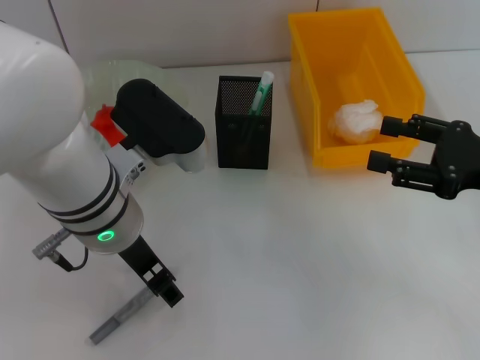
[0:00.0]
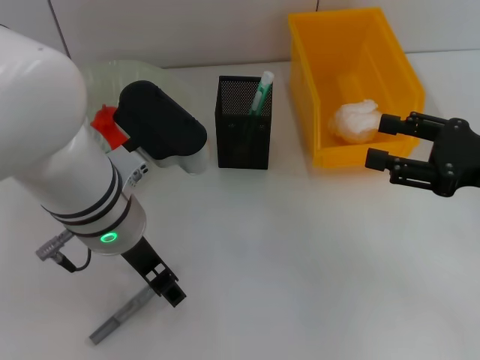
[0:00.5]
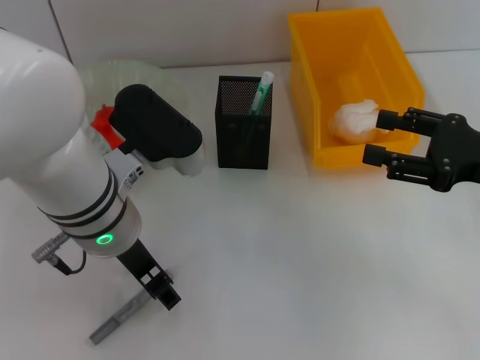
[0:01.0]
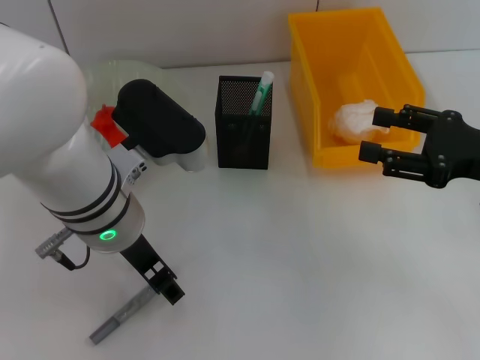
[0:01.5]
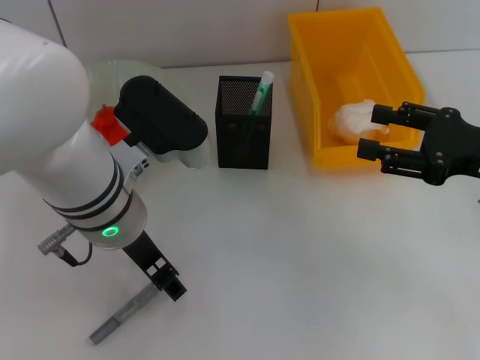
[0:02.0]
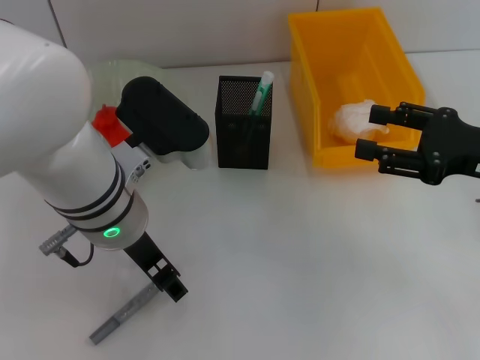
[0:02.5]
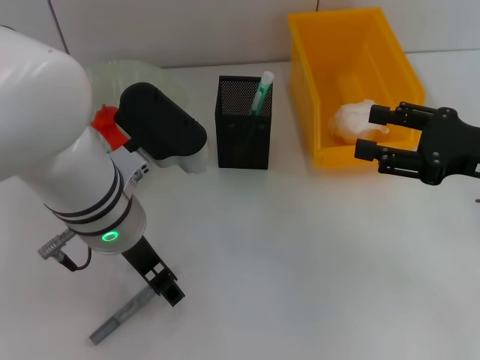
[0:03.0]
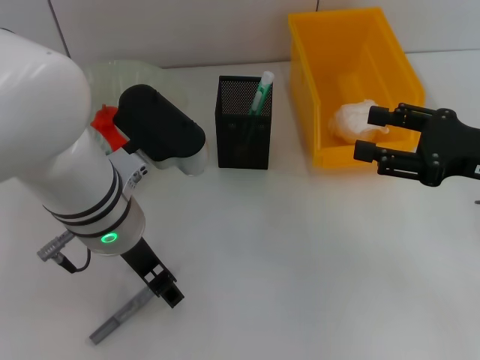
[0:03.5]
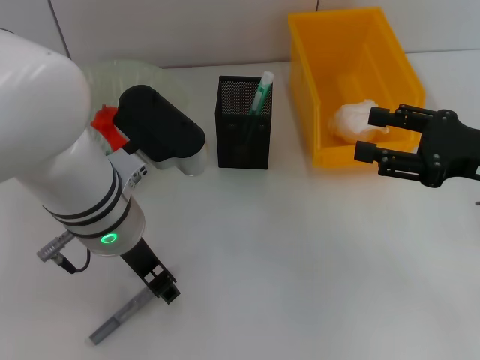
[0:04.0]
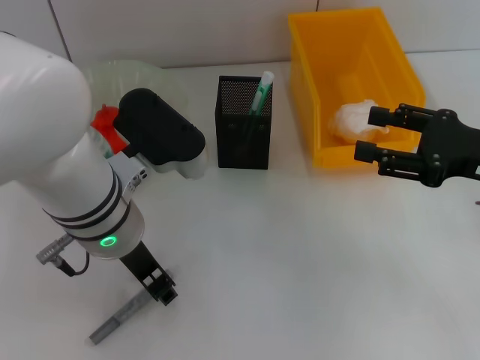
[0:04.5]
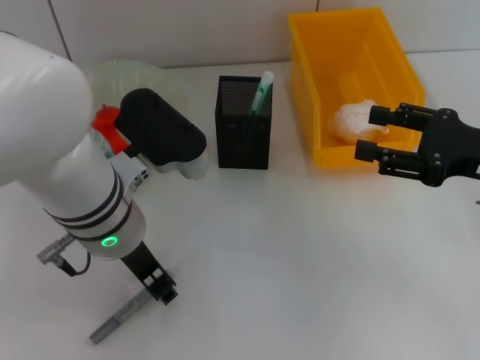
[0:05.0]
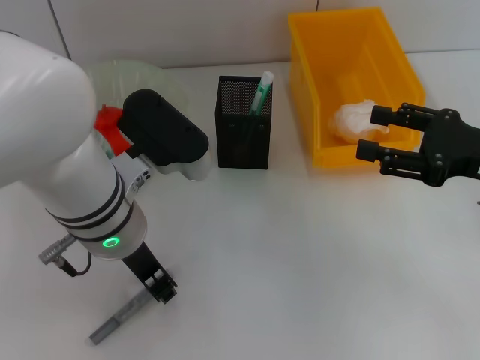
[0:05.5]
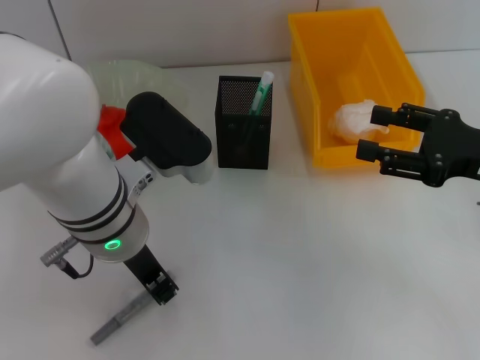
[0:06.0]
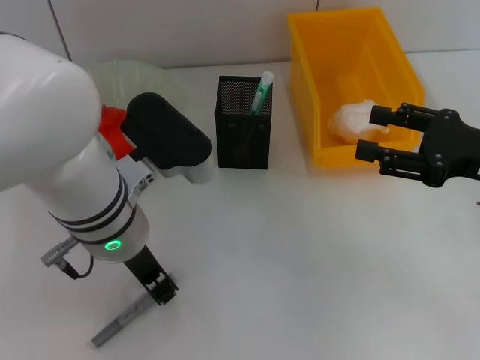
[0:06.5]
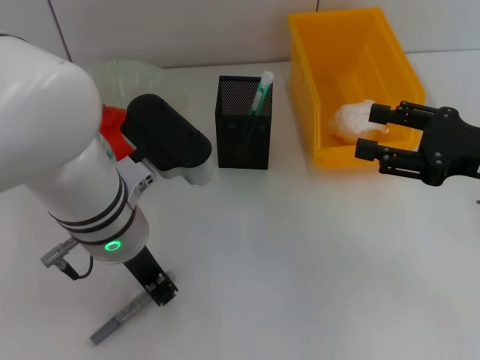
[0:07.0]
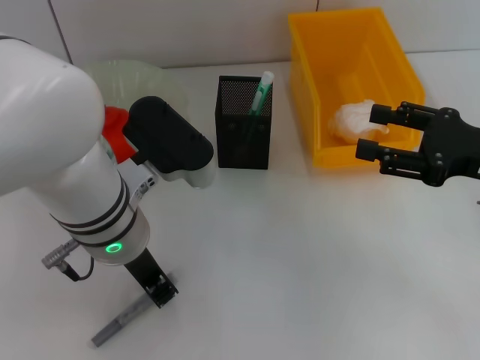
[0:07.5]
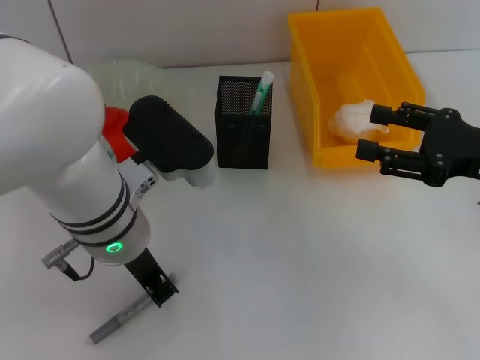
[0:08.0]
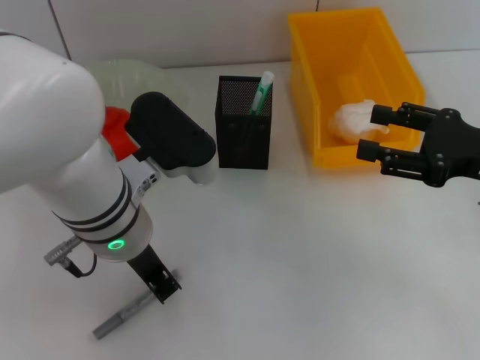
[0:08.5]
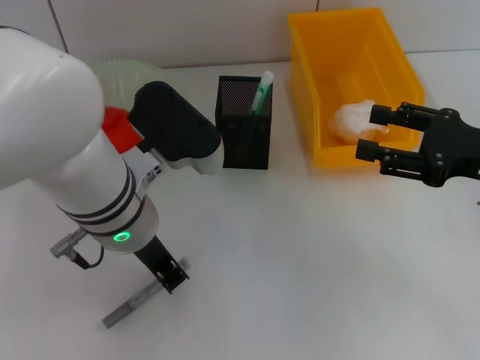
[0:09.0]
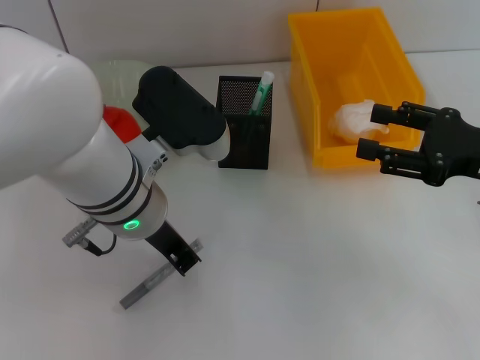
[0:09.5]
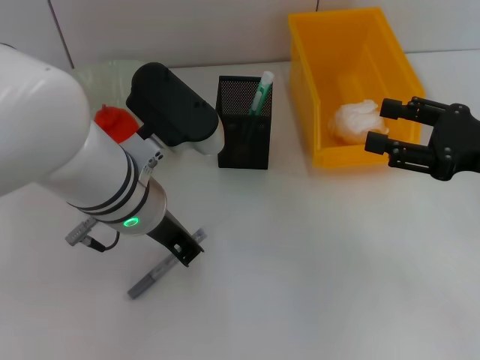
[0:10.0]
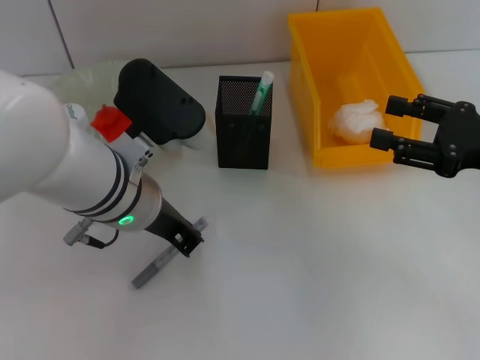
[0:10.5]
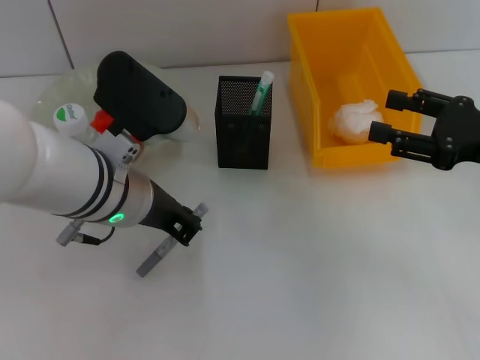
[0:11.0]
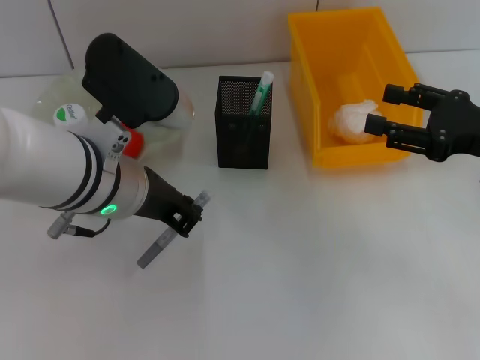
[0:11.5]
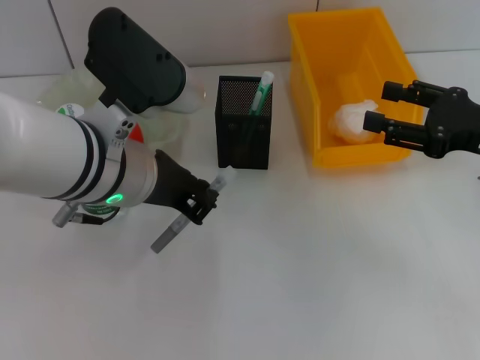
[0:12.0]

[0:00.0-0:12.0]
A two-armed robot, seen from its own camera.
Step, 0:00.0 to 0:08.0: Grab the gray glue with the left hand.
0:00.0 to 0:02.0: There are only small adjustments of the grippers.
0:02.0 to 0:04.0: Both grippers stay about where they are.
0:04.0 to 0:06.0: The left gripper closes.
0:06.0 to 0:08.0: The two grippers keep their place.
0:08.0 to 0:10.0: There are only small adjustments of the grippers.
0:10.0 to 0:12.0: The grippers stay close to where they were, moving slightly.

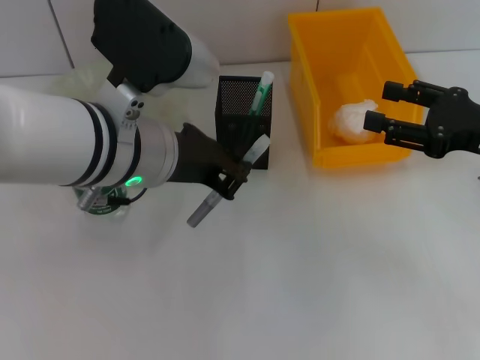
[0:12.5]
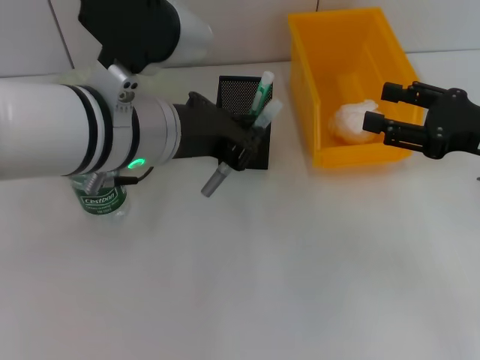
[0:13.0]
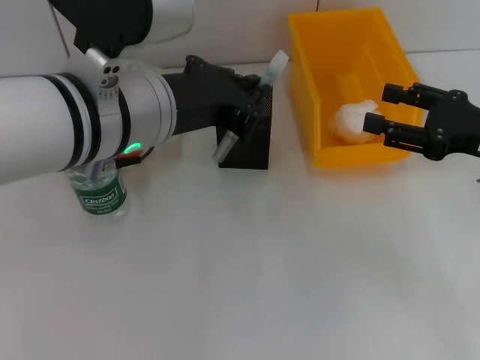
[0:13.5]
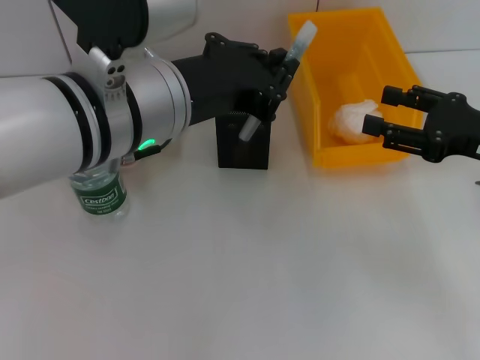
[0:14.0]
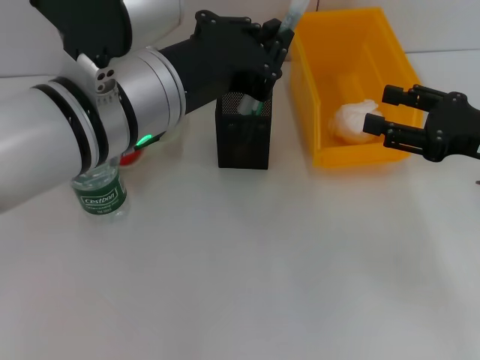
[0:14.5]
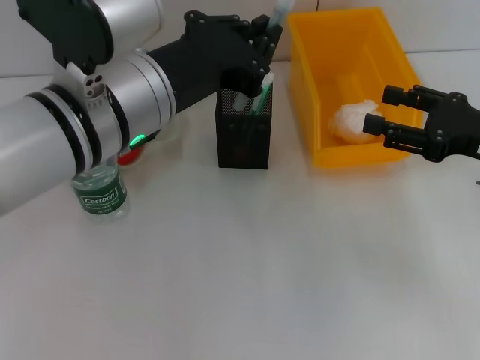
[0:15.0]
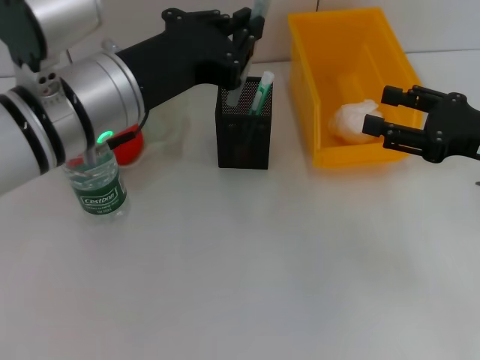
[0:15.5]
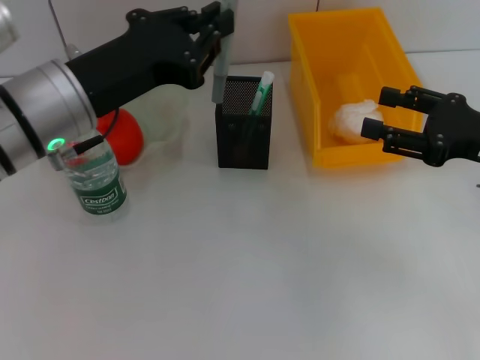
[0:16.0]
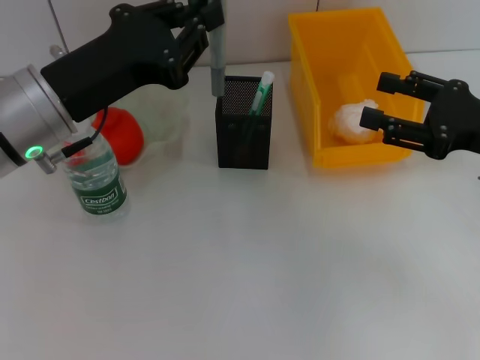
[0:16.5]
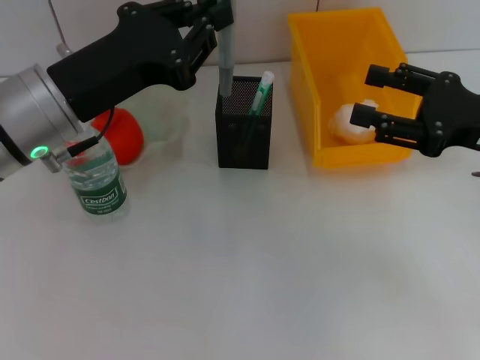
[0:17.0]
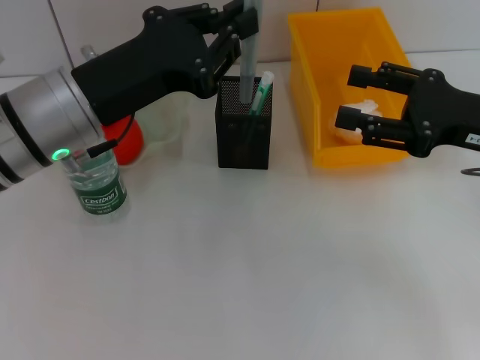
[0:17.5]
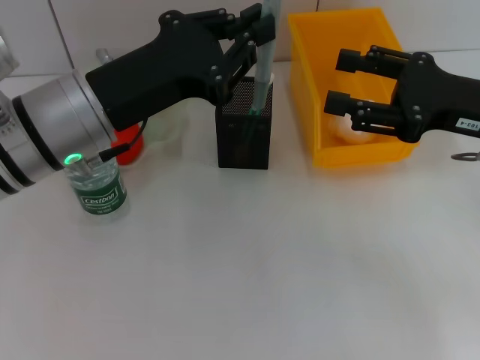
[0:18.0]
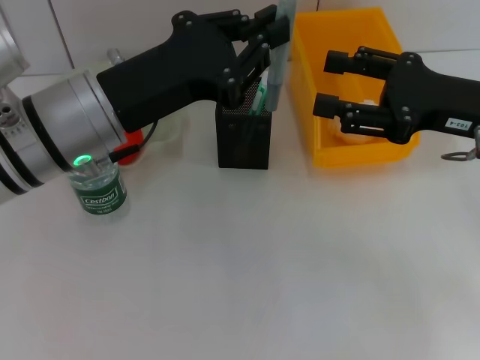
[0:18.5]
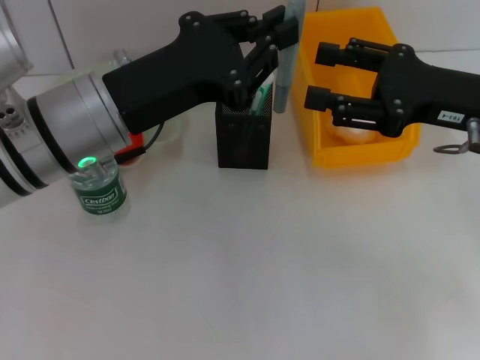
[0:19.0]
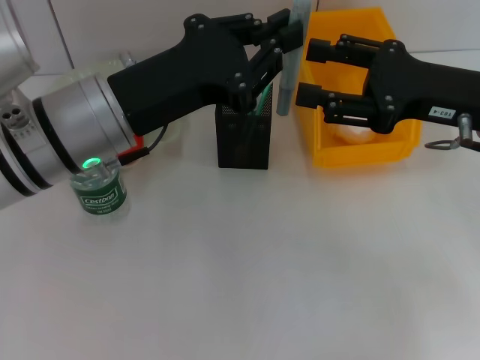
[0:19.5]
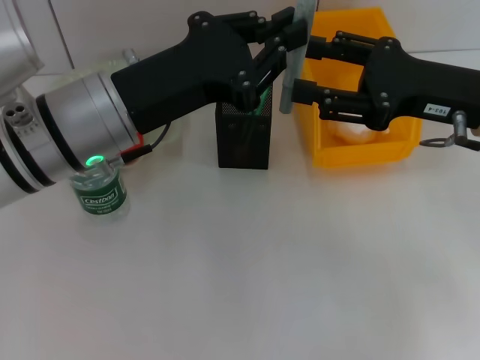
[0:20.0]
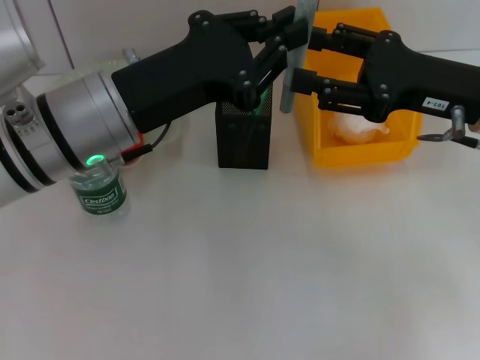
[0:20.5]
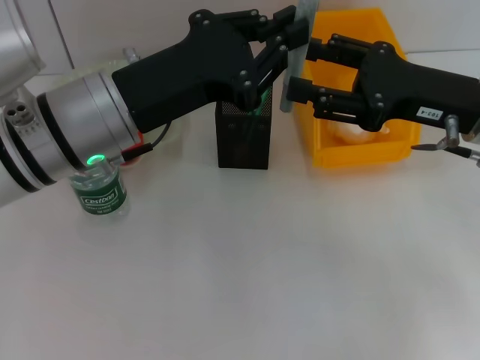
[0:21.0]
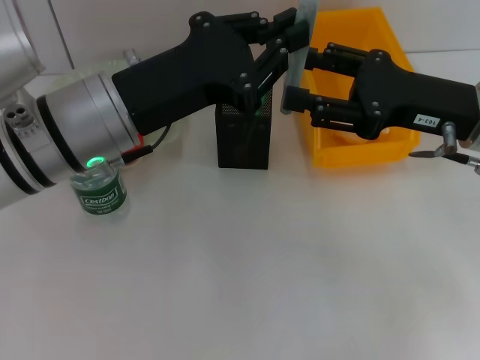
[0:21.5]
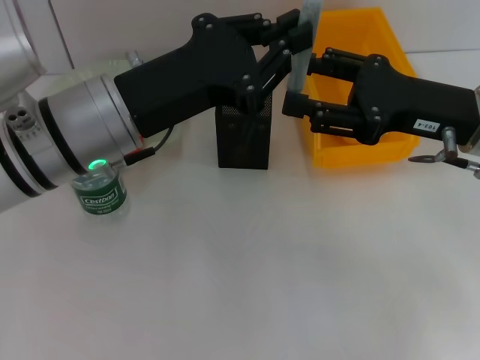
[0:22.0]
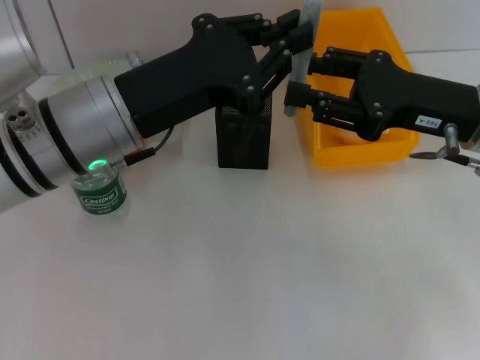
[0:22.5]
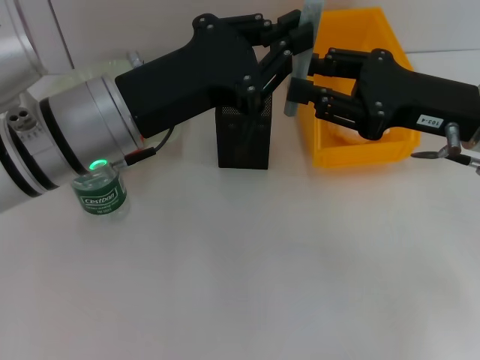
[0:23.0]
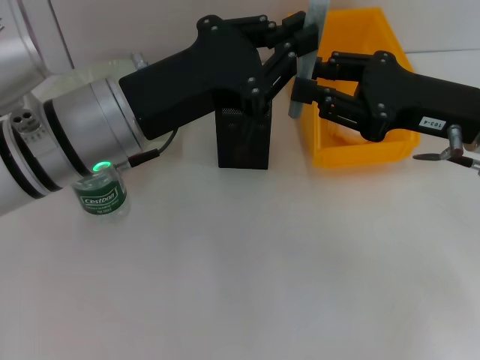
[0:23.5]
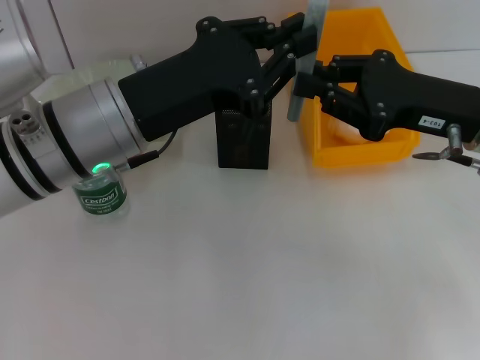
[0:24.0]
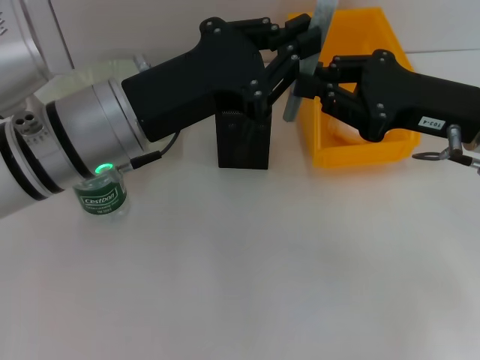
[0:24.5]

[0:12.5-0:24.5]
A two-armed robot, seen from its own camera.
0:14.5 to 0:16.5: The left gripper goes roughly 10 cm to the left.
0:16.5 to 0:18.5: The right gripper moves about 5 cm.
0:18.5 to 0:22.5: The grippers move only a little.
0:22.5 to 0:24.5: The right gripper closes up.

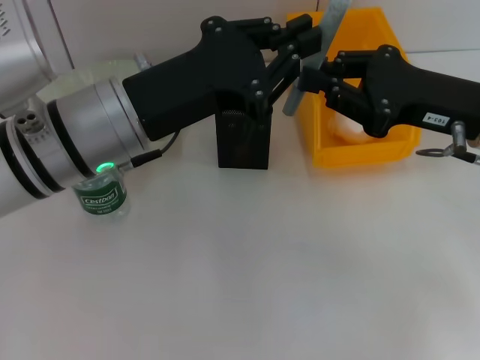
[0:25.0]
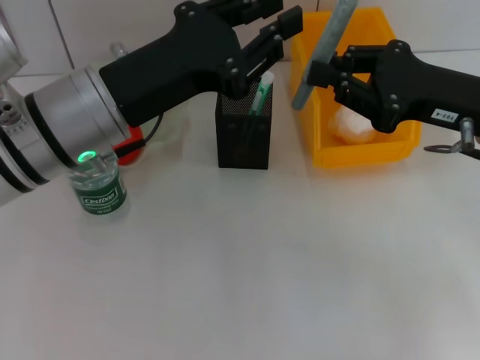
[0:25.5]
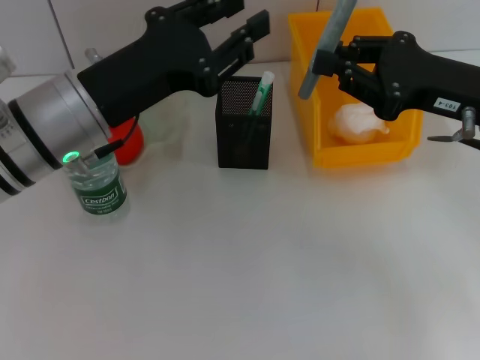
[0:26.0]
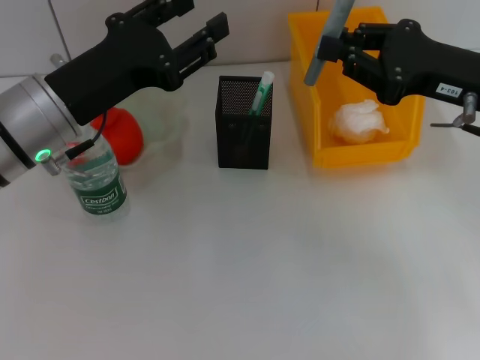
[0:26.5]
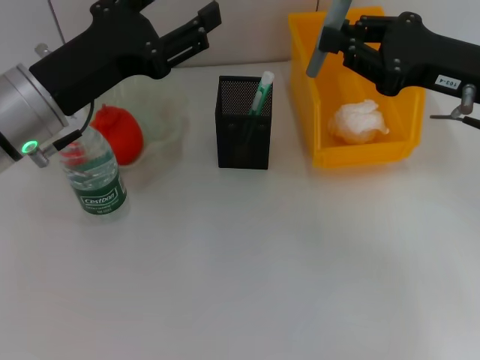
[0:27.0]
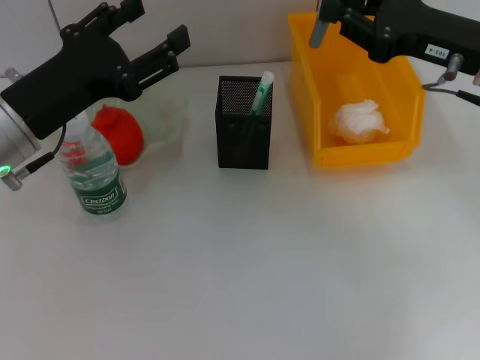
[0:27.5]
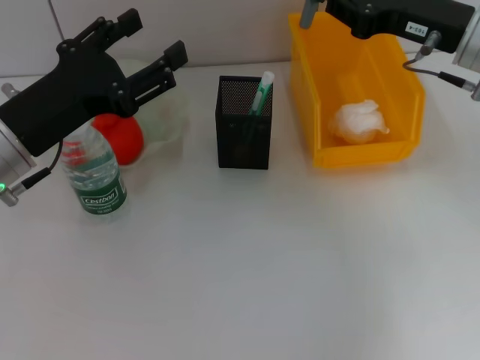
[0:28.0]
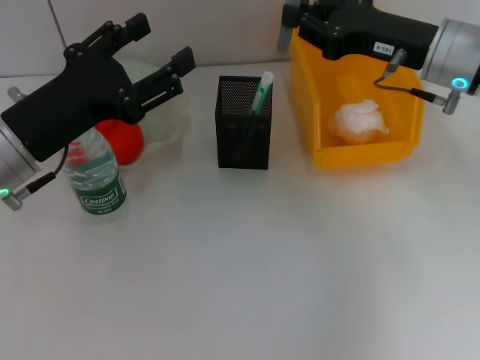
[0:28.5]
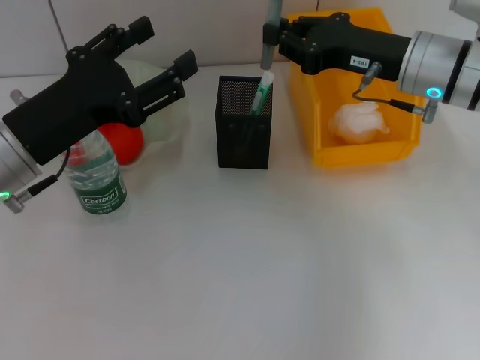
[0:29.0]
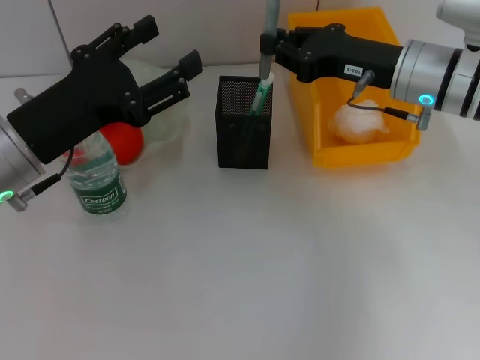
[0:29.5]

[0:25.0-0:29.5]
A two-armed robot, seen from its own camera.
0:25.0 to 0:27.0: The left gripper is displaced to the left by about 5 cm, and opens.
0:27.0 to 0:29.5: The right gripper travels forward and to the left by roughly 10 cm.
